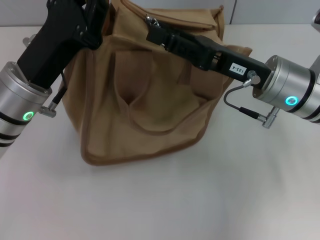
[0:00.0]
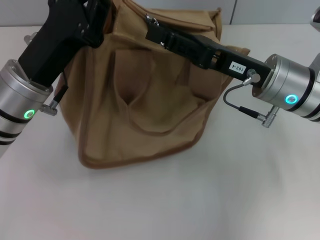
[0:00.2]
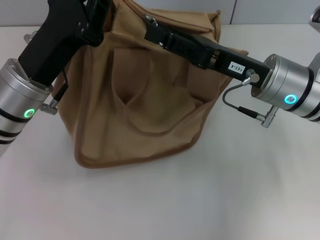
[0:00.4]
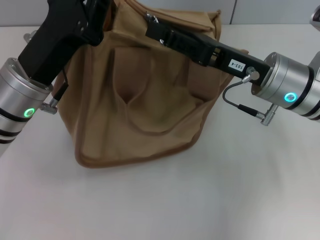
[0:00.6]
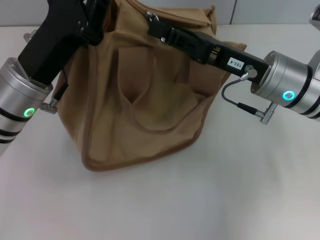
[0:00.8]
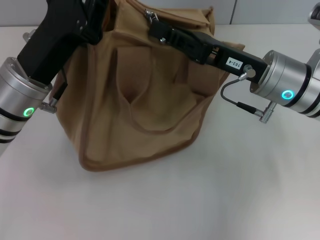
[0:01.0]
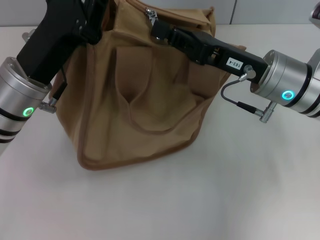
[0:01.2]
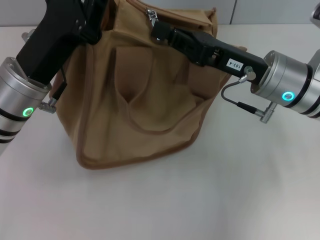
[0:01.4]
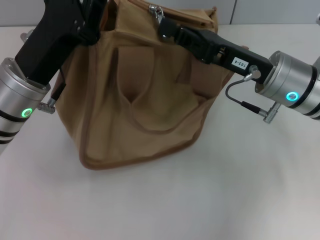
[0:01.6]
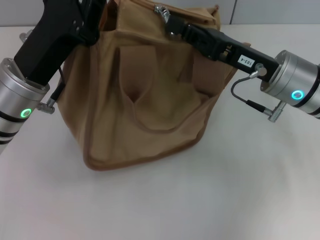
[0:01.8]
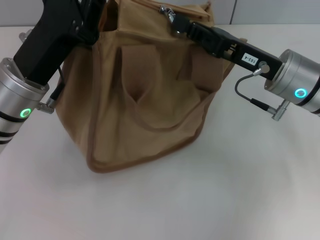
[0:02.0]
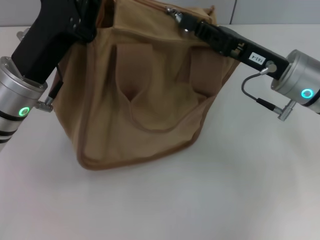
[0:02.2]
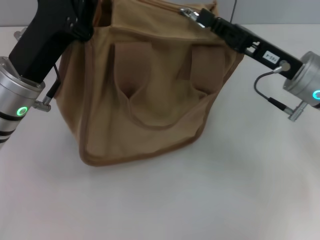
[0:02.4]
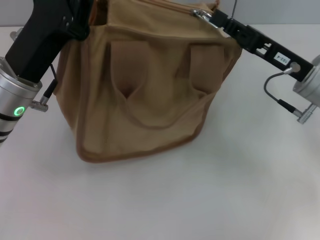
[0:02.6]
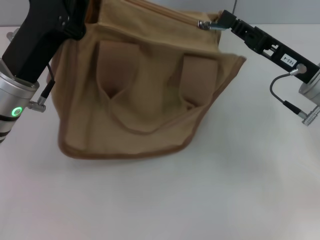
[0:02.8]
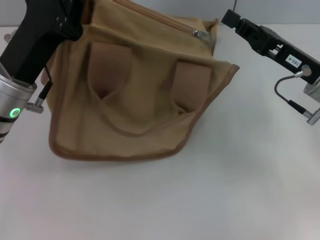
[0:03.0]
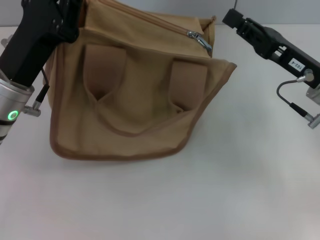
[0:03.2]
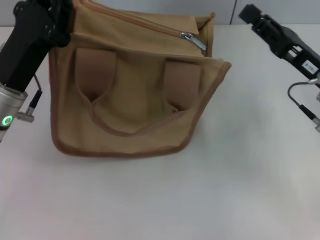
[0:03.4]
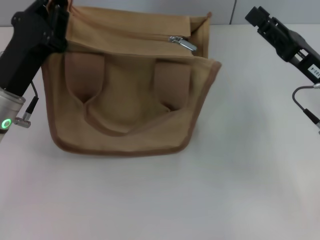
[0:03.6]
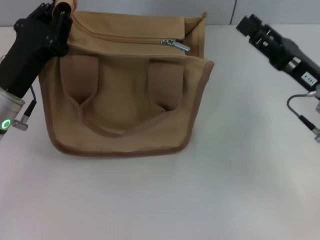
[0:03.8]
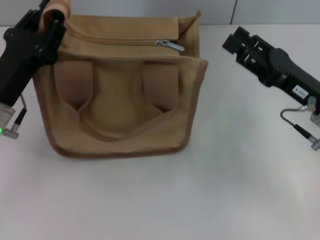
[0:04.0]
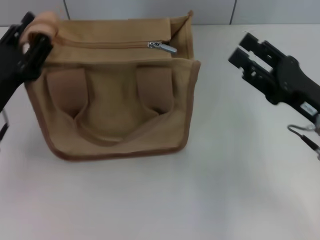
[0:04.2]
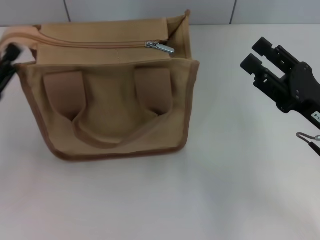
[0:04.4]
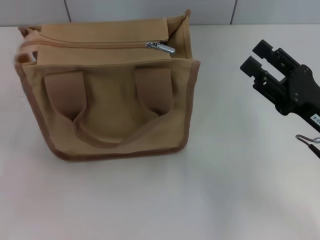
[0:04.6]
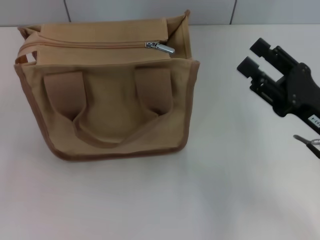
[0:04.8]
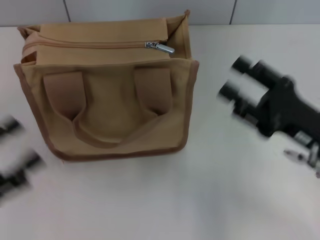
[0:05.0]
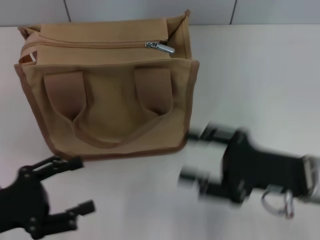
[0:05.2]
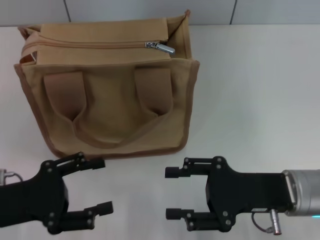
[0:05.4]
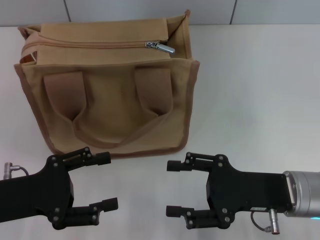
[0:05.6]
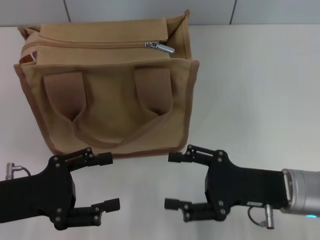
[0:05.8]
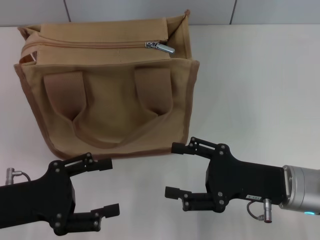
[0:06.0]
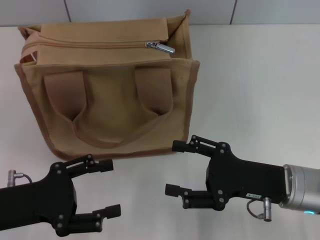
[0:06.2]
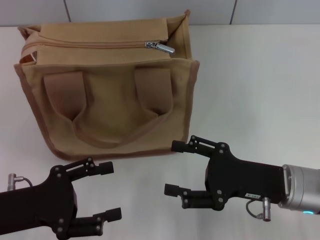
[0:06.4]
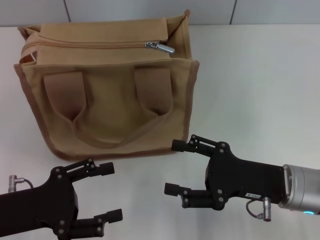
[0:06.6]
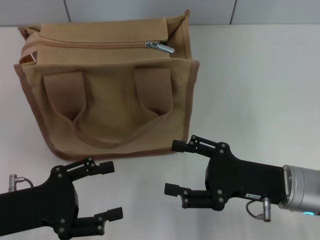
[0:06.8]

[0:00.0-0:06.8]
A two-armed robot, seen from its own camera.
Step, 0:00.0 to 0:03.2: Pull up the zipper with your right hand.
Step, 0:03.4 to 0:04.8: Grab the zipper with your left hand.
0:00.0 to 0:01.4: The right gripper closes up.
0:01.4 to 0:02.8: The right gripper travels to the right by approximately 5 cm.
0:02.8 to 0:04.0: The right gripper opens up, while the left gripper ends up roughly 5 cm from where it was.
0:04.0 to 0:05.4: Both grippers travel together backward, approximately 5 cm. The left gripper opens.
0:05.4 to 0:06.8: The grippers stay close to where they were, moving slightly.

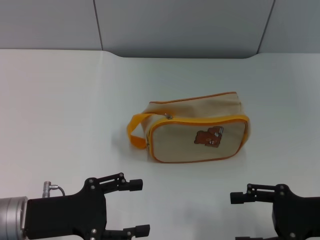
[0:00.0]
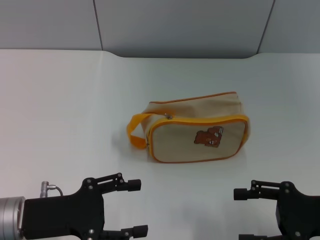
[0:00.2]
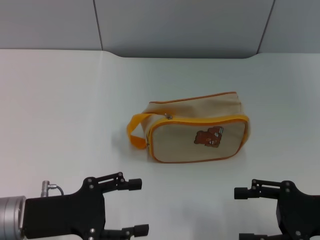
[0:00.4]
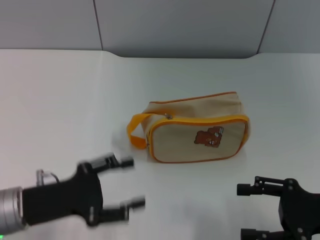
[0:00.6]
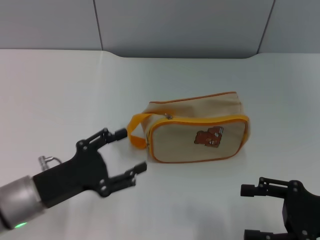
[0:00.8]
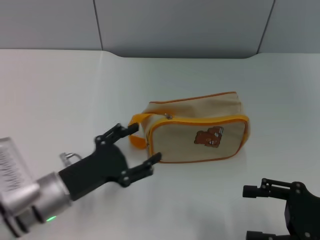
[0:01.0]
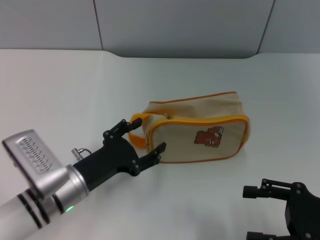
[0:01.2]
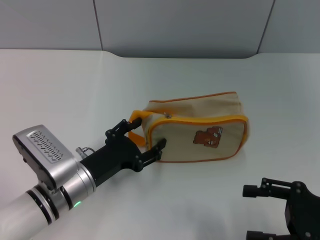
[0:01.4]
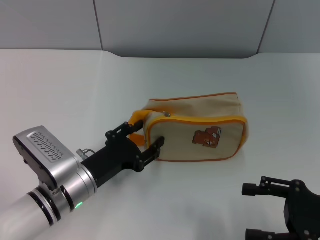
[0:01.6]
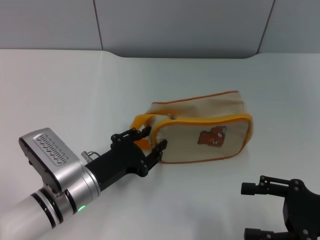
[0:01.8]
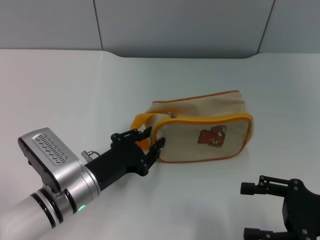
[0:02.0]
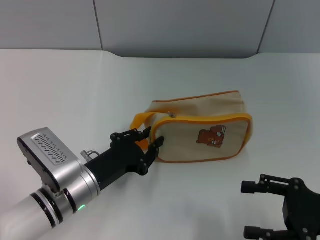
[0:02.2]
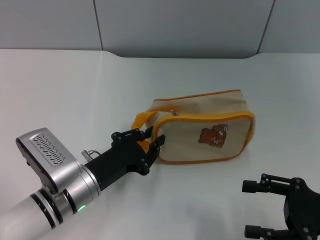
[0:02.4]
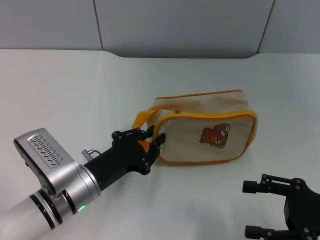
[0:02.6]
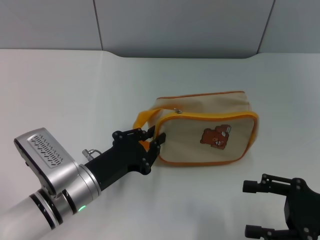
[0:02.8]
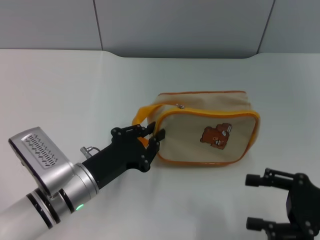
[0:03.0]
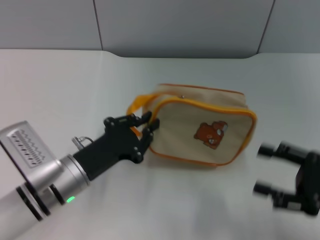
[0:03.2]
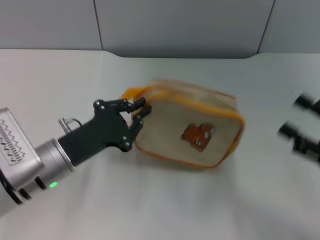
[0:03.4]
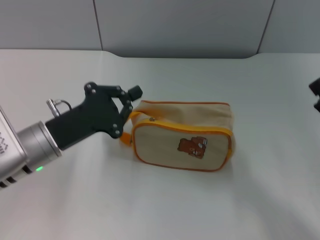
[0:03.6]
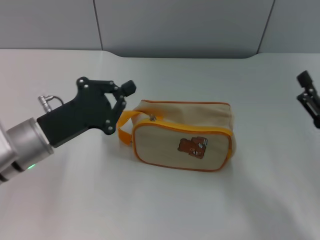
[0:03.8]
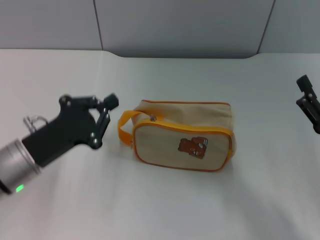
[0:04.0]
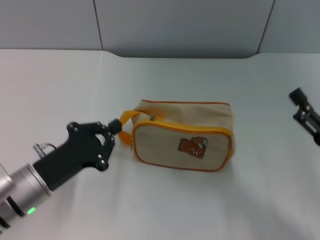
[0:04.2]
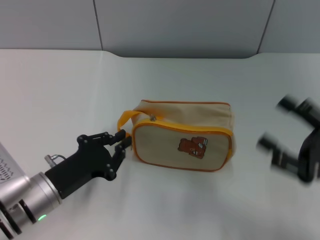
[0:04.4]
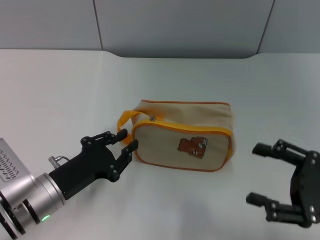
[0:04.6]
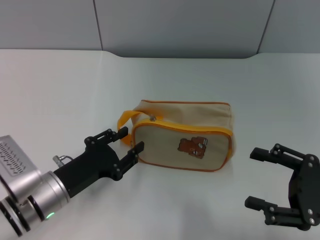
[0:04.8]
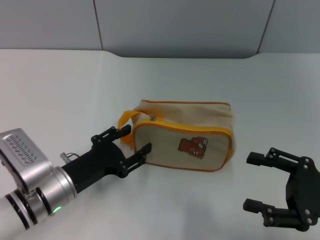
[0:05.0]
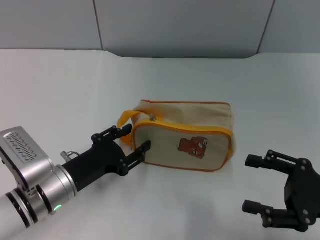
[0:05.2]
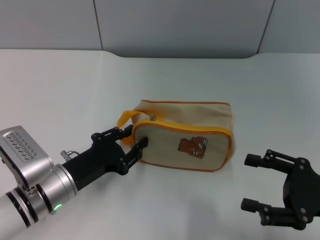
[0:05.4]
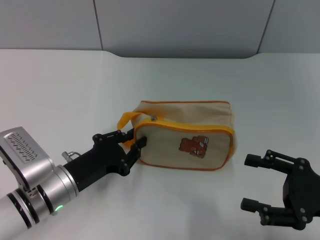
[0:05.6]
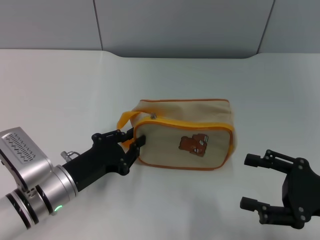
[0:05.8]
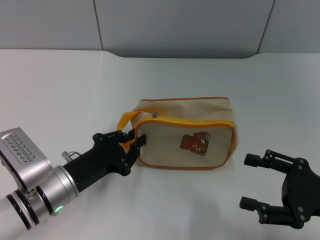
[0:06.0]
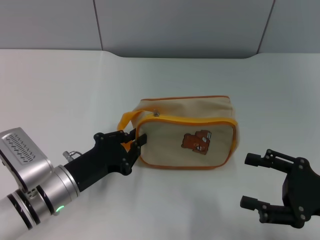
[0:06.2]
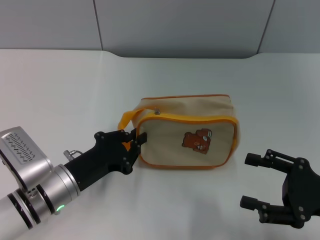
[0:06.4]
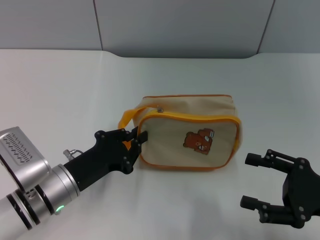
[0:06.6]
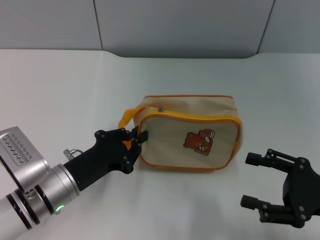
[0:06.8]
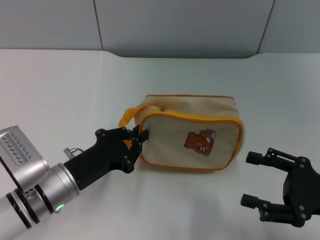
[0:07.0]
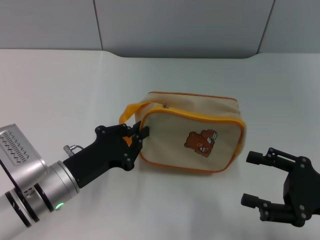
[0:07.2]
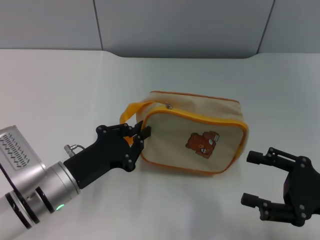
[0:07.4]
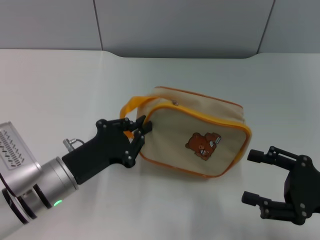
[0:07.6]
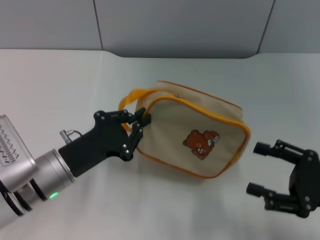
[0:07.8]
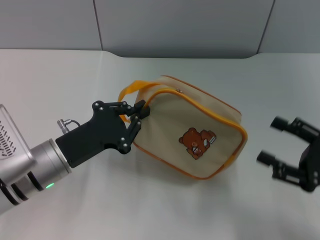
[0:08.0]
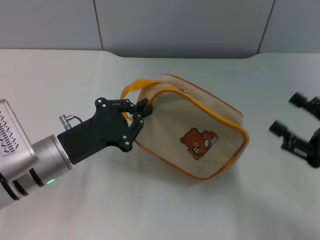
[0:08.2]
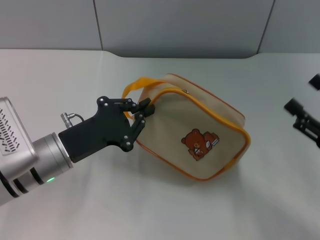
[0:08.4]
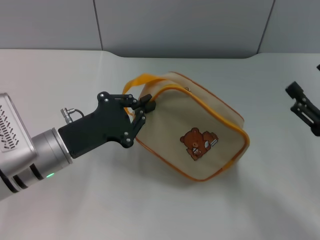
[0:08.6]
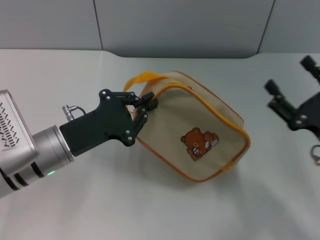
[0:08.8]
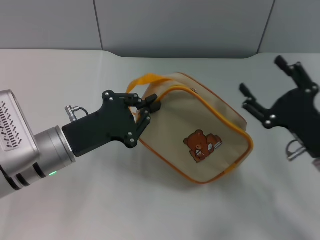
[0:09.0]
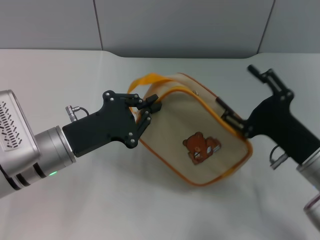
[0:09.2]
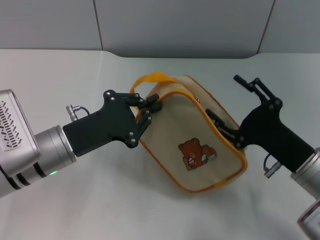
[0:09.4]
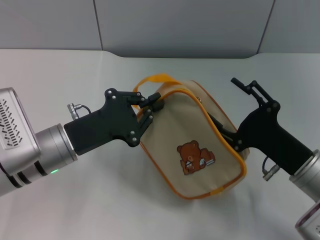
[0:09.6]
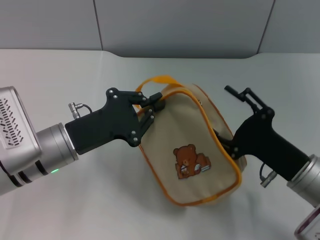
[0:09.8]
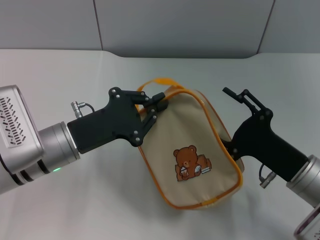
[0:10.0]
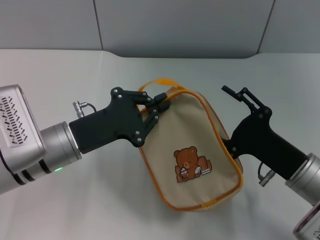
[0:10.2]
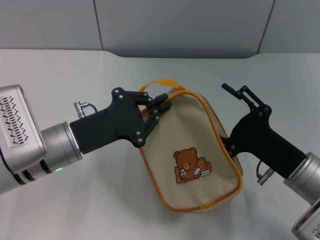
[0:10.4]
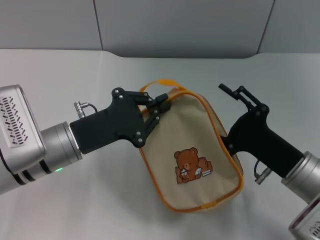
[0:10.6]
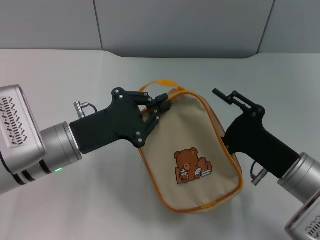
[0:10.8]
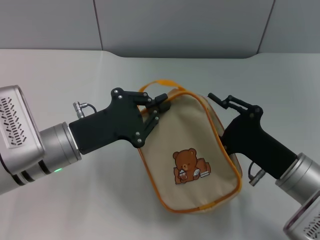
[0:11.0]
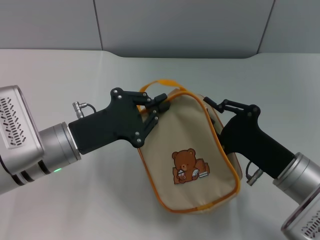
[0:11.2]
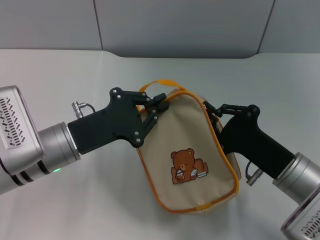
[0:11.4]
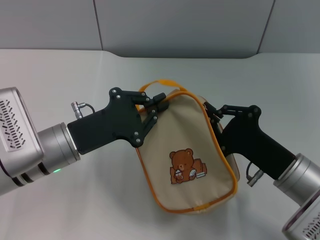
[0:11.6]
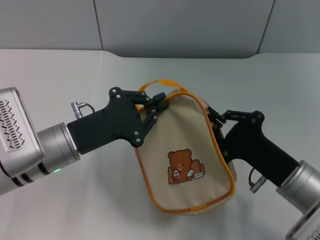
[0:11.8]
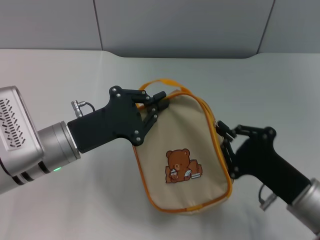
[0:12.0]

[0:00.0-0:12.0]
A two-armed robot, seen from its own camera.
Step, 0:00.0 to 0:08.2: Pick up the bag with left gripper.
0:00.0 to 0:01.6: The left gripper is displaced to the right and downward by approximately 10 cm.
0:01.6 to 0:03.0: The left gripper closes.
0:03.0 to 0:04.4: The left gripper heads to the left, covering some 5 cm.
0:04.4 to 0:06.0: The left gripper opens, then closes once more.
0:06.0 to 0:07.6: The grippers stay close to where they were, moving slightly.
0:07.6 to 0:09.0: The right gripper shifts about 5 cm to the left. The left gripper changes place by approximately 5 cm.
0:10.4 to 0:12.0: The right gripper closes up.

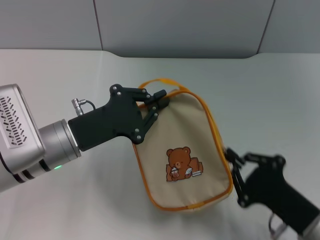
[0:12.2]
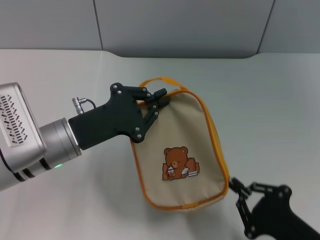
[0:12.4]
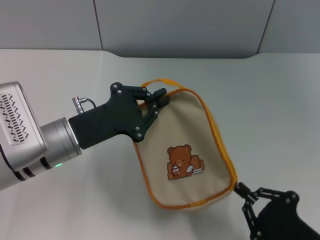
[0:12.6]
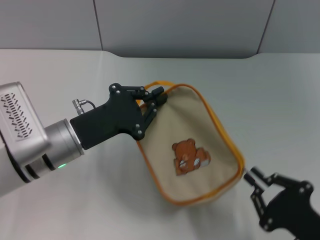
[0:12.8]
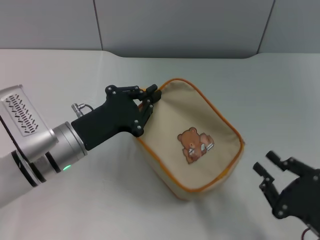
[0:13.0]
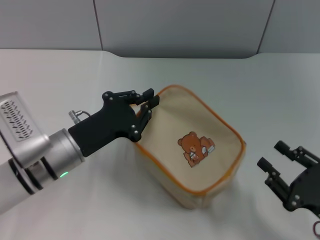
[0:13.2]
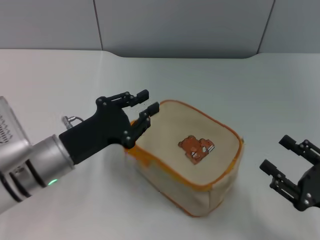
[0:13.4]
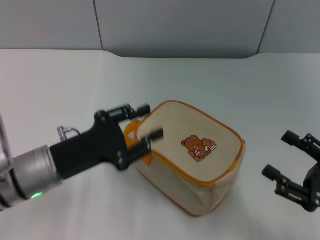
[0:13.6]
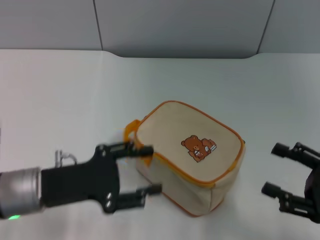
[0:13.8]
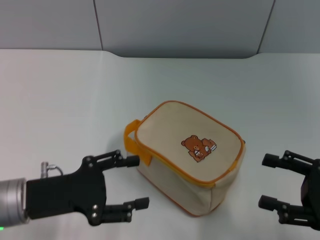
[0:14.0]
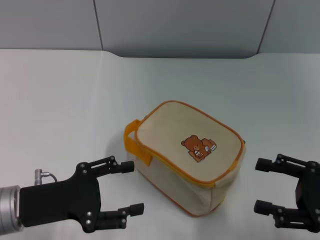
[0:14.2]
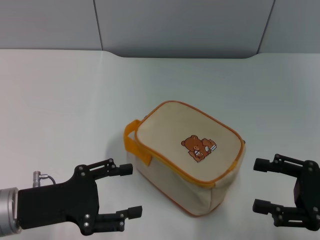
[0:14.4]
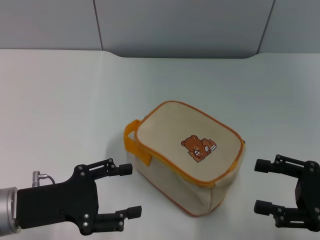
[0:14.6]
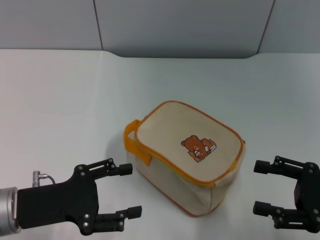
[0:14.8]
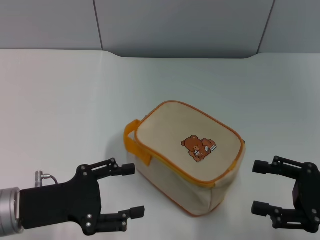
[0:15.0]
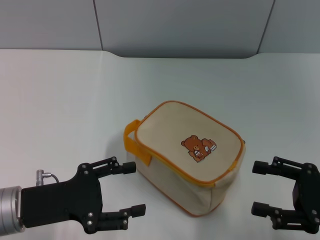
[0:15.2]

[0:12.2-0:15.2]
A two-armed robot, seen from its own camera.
Step, 0:13.0 to 0:13.2: Place the bag on the table with left gripper.
0:12.2 to 0:13.8: The left gripper shifts by roughly 5 cm, and opens its fingers; the right gripper goes about 10 cm to the right and upward, and opens up.
0:13.8 to 0:15.2: The left gripper opens.
